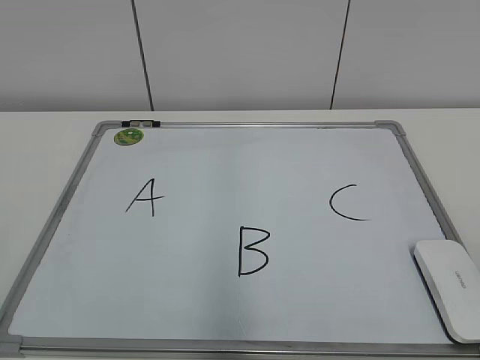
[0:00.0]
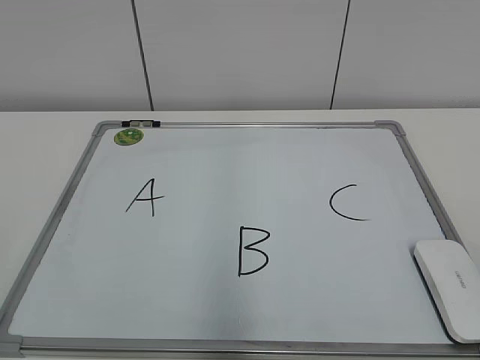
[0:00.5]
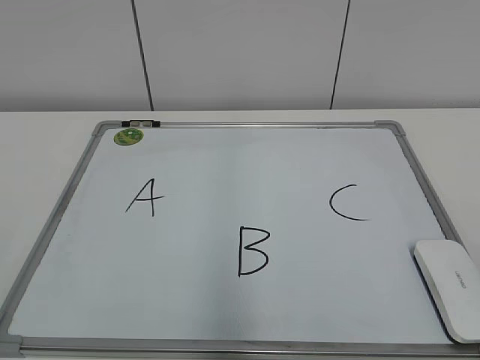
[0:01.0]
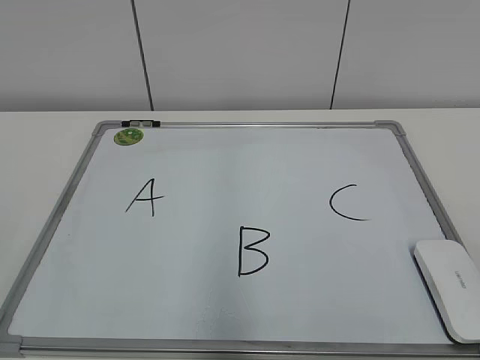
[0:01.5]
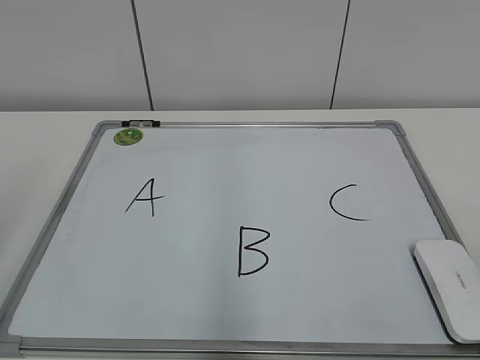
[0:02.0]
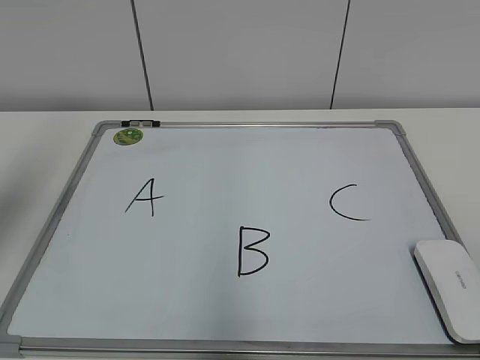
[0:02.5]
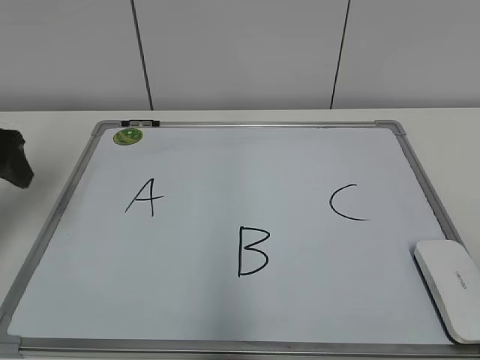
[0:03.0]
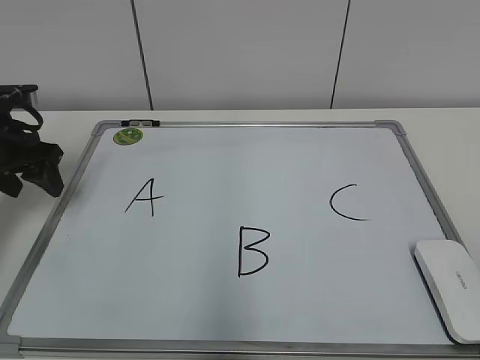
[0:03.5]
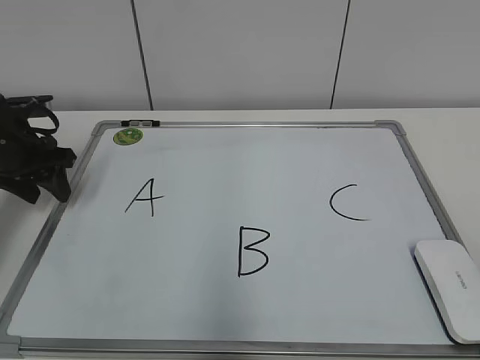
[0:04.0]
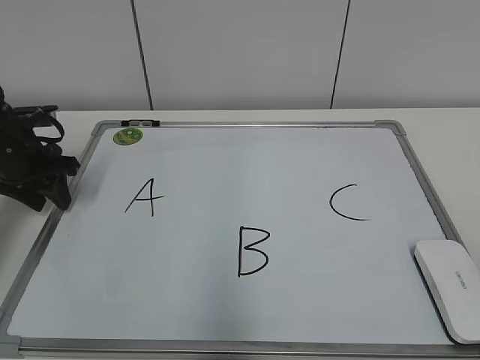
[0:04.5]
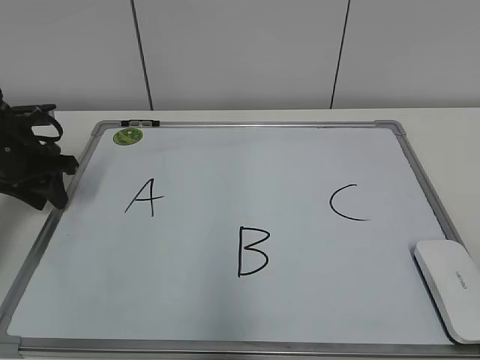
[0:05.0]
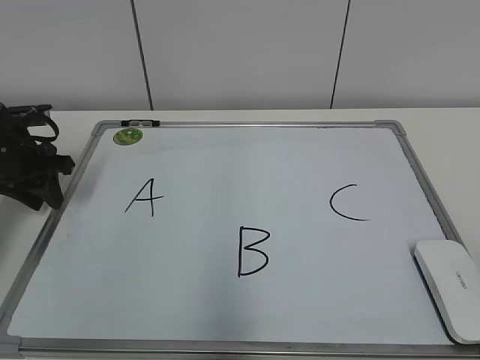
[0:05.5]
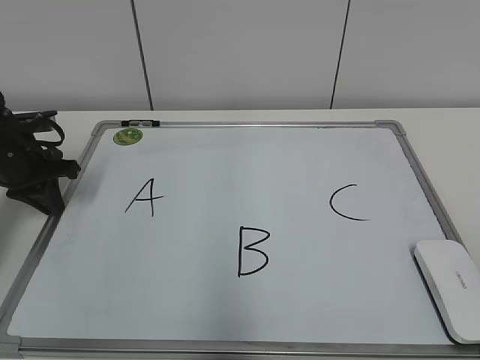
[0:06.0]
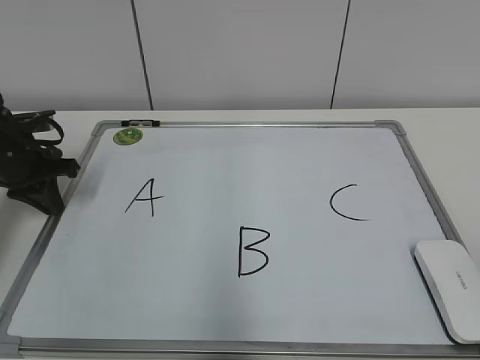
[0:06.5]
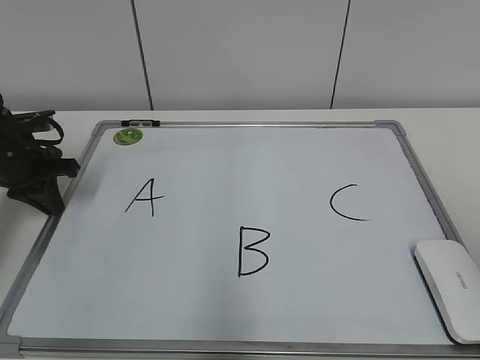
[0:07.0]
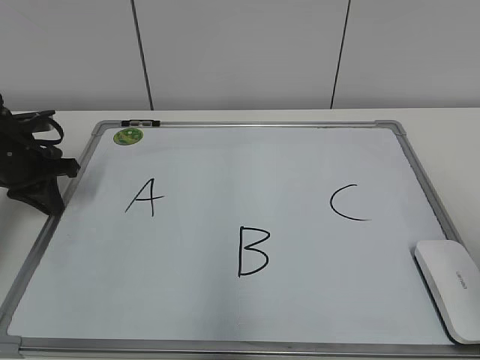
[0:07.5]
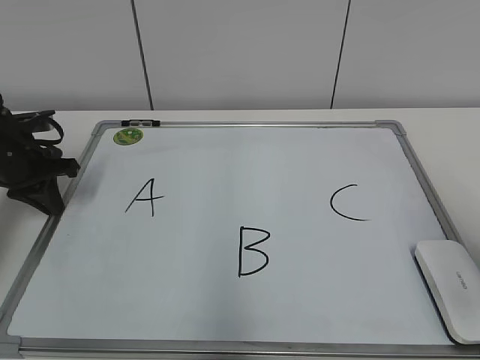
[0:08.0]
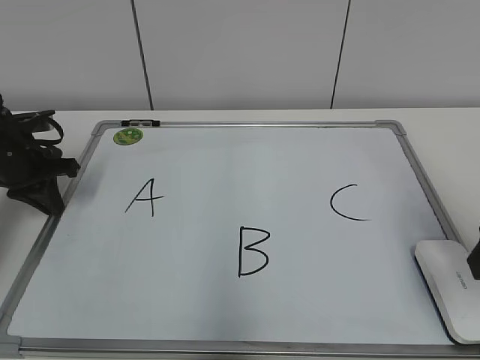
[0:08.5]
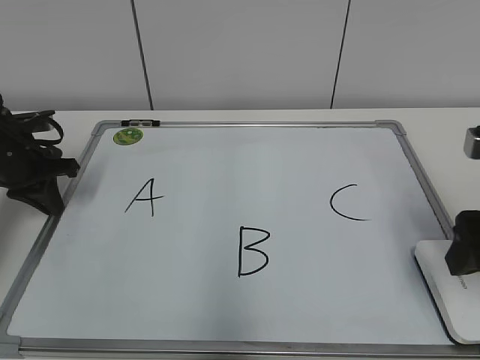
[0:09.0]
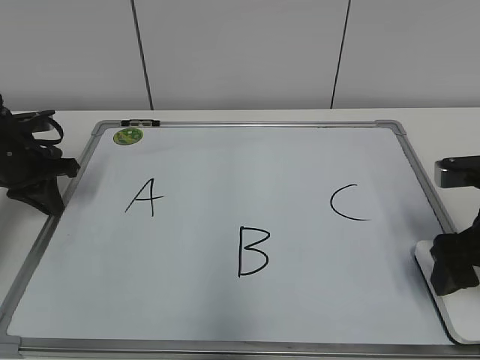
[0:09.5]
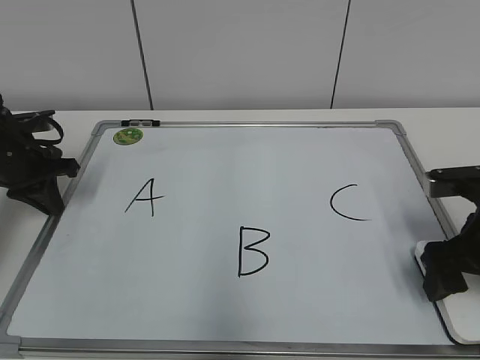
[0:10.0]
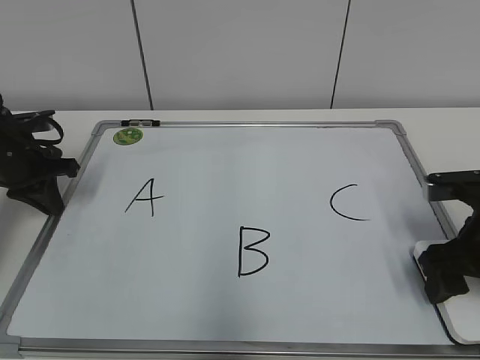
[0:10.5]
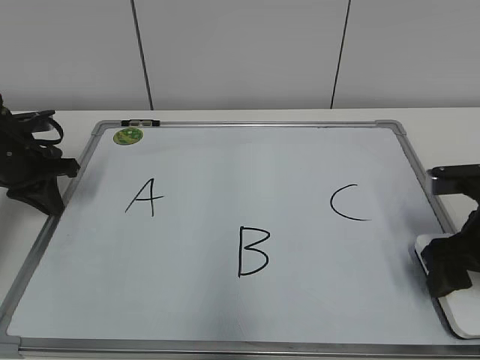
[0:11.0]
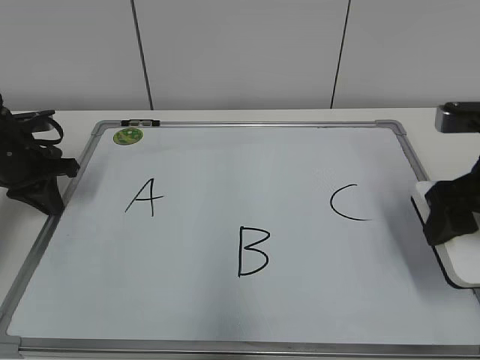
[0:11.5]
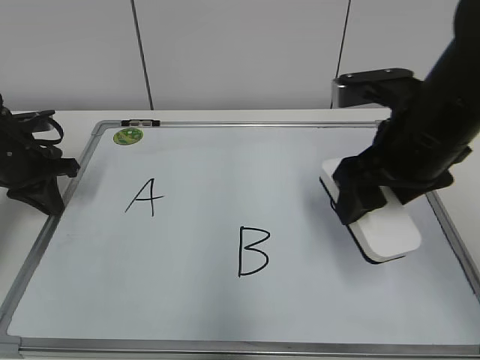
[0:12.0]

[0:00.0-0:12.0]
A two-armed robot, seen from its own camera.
Task of the whole recording: pick up the eraser on the blackboard and erase the letter "B".
Step, 0:00.0 to 0:06.0: Hold the drawing board steady with your left hand.
Step, 0:06.5 to 0:10.5: Grab the eraser with your right hand.
0:02.0 to 0:04.0: The left gripper heads forward and downward, covering approximately 35 cm.
0:04.0 to 0:06.0: The left gripper closes.
0:06.0 to 0:08.0: The right gripper travels forward by roughly 15 cm.
0:08.0 to 0:10.0: The right gripper moves downward and forward, approximately 15 cm, and opens.
0:10.0 to 0:12.0: The right gripper is displaced to the left and upward by approximately 15 cm, and closes up.

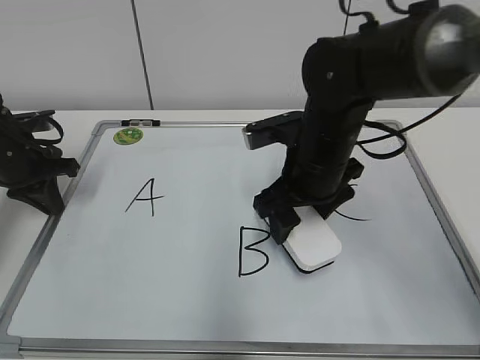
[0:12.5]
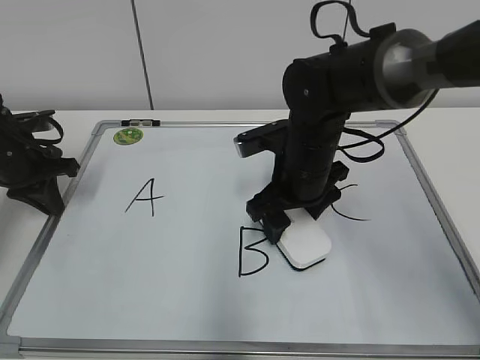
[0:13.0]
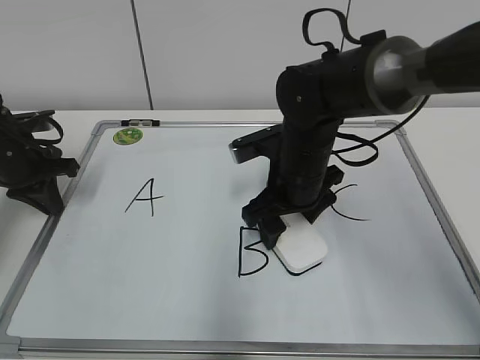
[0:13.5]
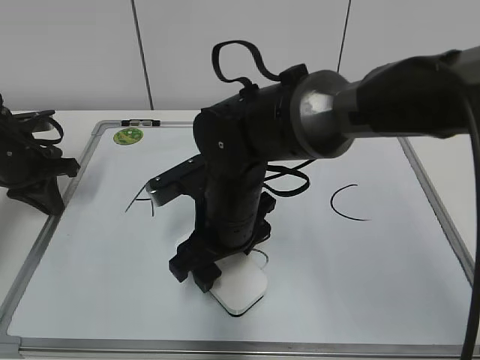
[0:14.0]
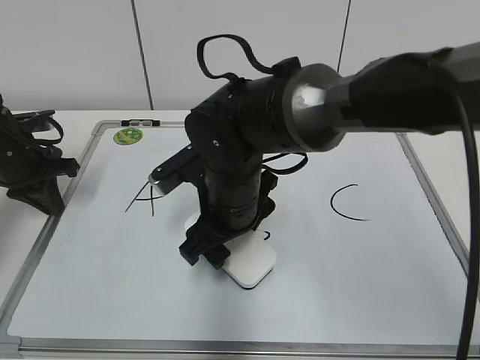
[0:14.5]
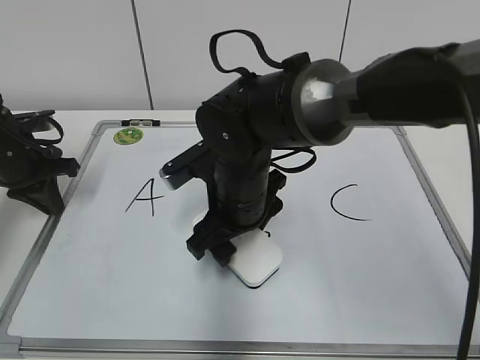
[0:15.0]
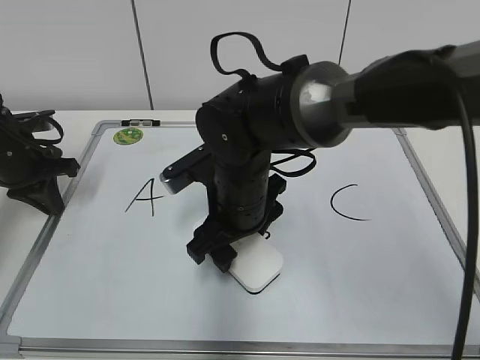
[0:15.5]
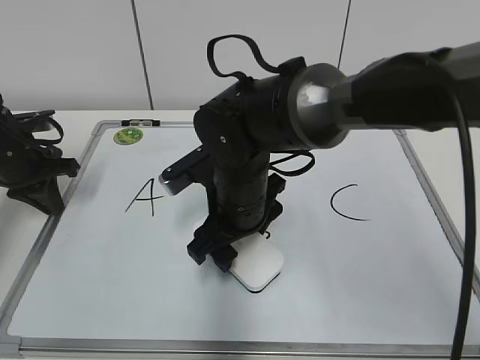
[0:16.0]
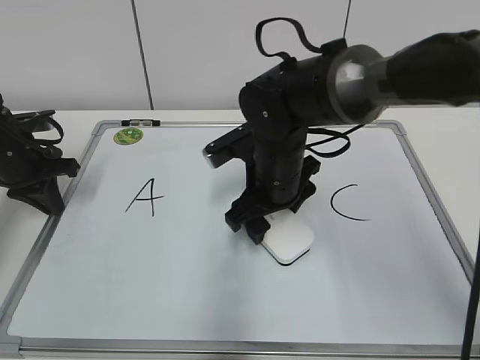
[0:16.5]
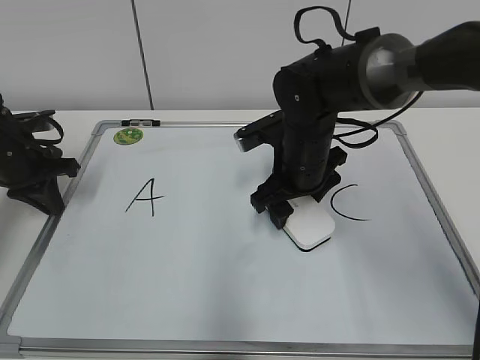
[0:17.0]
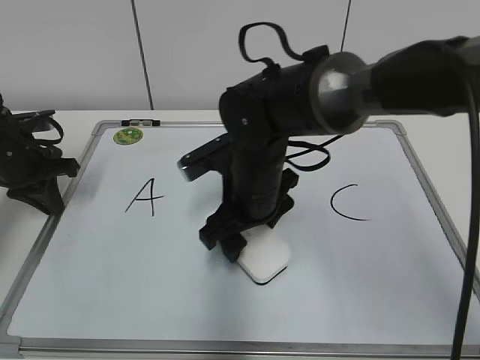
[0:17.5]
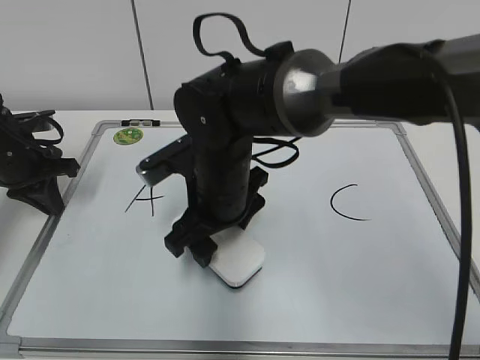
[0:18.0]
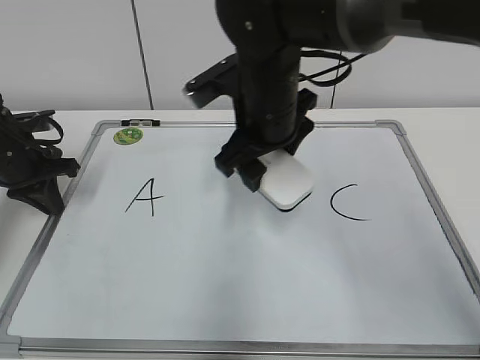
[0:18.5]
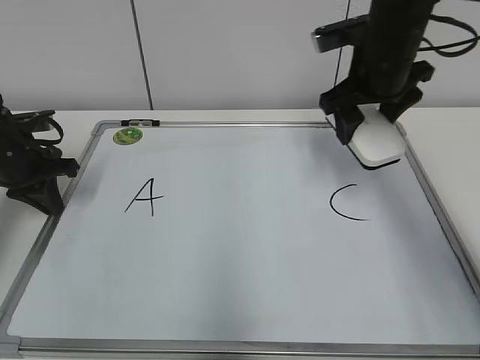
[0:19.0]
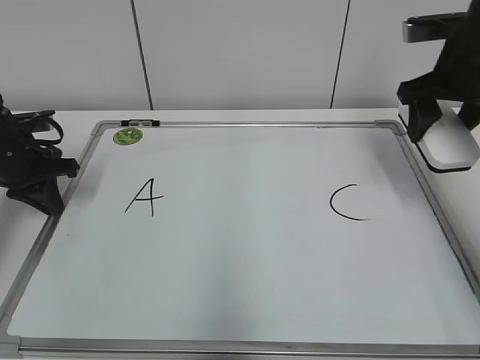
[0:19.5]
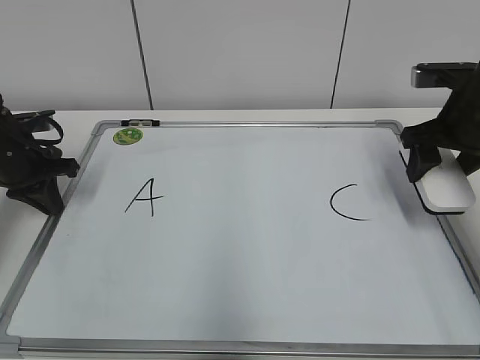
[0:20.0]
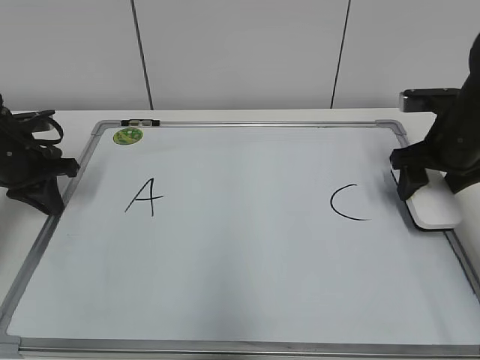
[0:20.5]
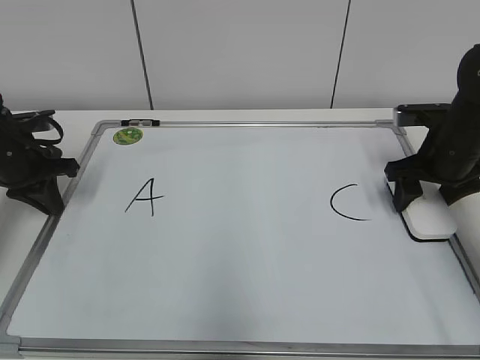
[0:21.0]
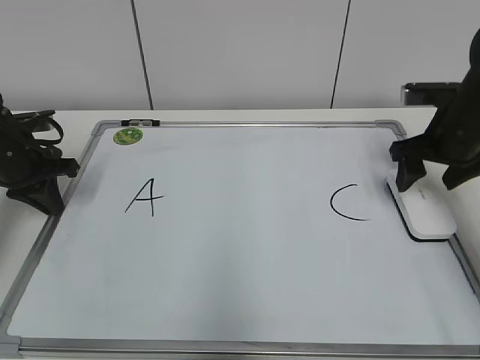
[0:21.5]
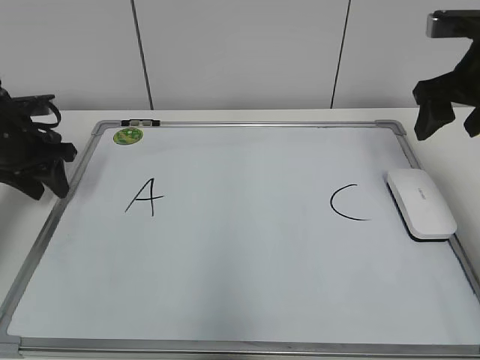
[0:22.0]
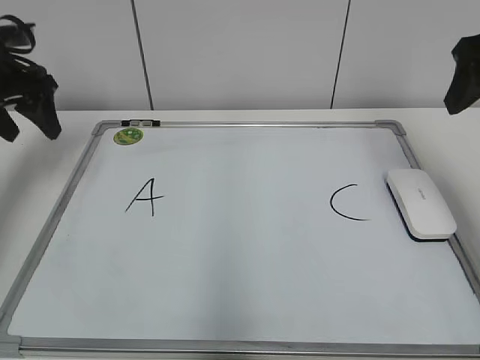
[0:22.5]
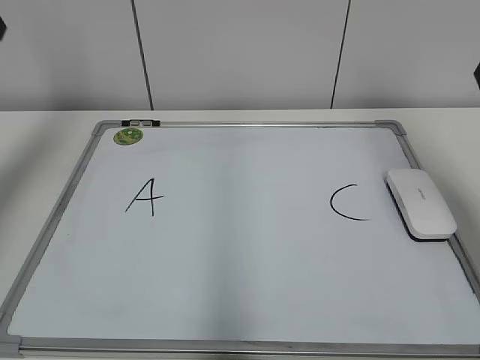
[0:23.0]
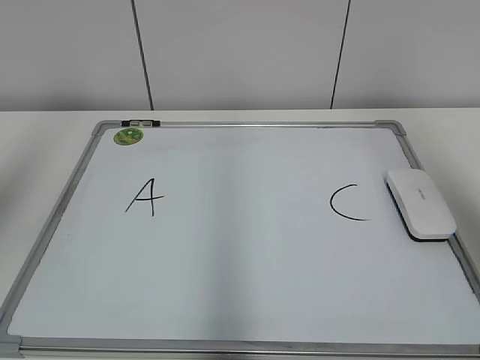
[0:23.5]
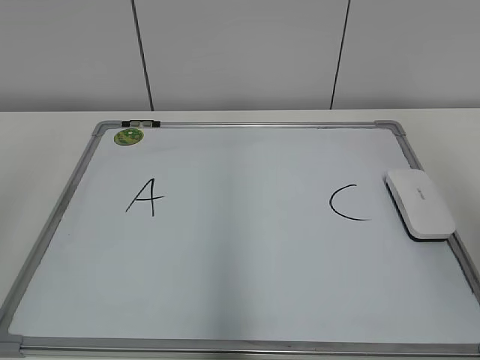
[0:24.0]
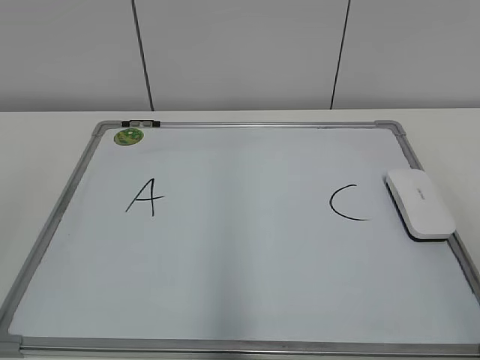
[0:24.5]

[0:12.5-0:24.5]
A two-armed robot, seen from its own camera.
Task of the whole recording: pick up the eraser on the blackboard and erase the letter "B".
Step, 0:12.5 to 0:17.5: Erase the letter B with your right hand.
Step, 0:18.0 to 0:21.0: Put down the eraser with your right hand.
0:12.5 to 0:14.5: The right gripper travels to the left by approximately 10 cm.
0:14.5 to 0:16.5: The right gripper is displaced to the right by about 5 cm.
0:16.5 to 0:18.5: The right gripper goes roughly 10 cm upward, and reaches approximately 5 cm to the left, then returns.
0:18.5 to 0:20.5: The right gripper shifts roughly 25 cm to the right.
0:20.5 to 0:22.5: Both grippers travel together upward, some 15 cm. The left gripper opens.
0:22.5 to 0:24.5: Both grippers move backward, about 35 cm.

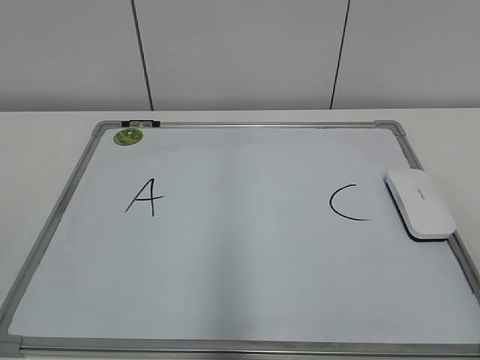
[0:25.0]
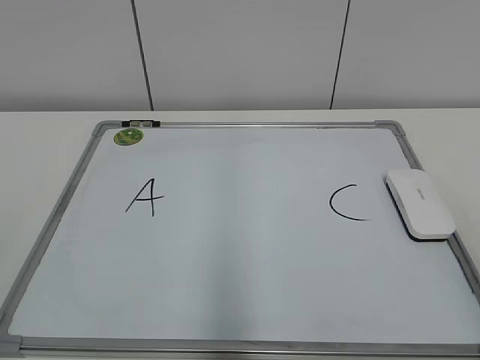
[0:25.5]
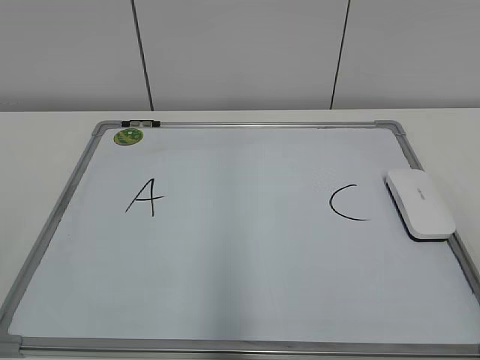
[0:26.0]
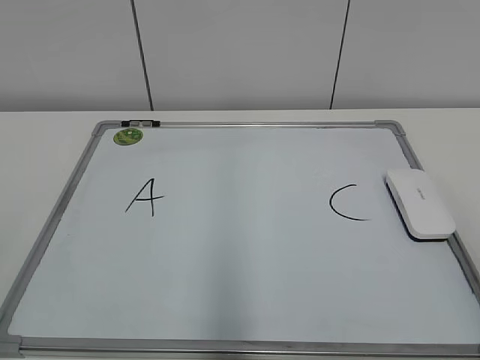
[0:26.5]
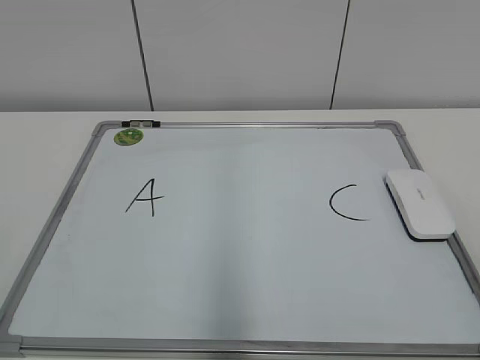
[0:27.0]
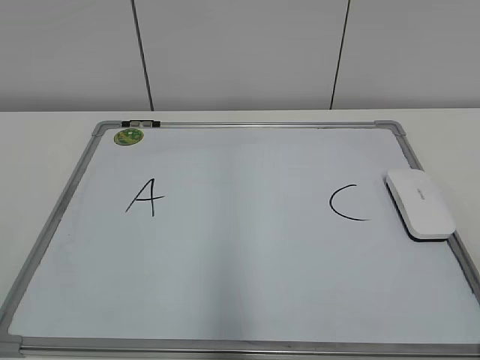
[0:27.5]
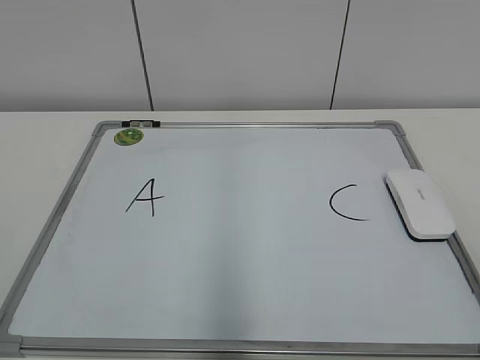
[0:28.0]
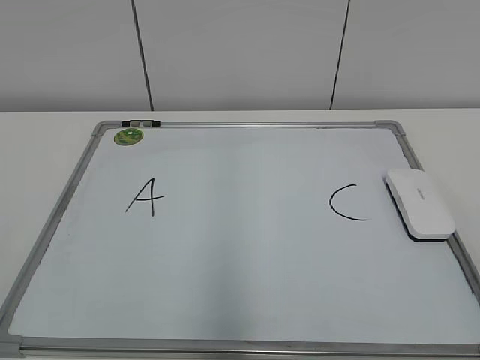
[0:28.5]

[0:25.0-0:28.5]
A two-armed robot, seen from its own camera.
Task of the whole recording: pick up the eraser on the blackboard and erase the letter "B".
0:27.0 to 0:28.5: Neither gripper changes place.
